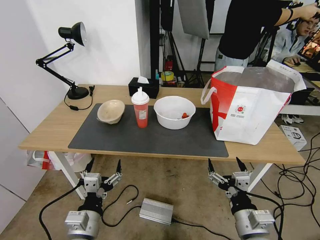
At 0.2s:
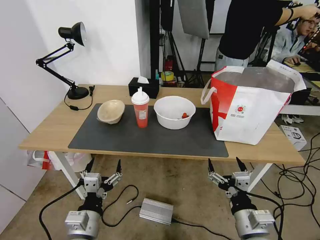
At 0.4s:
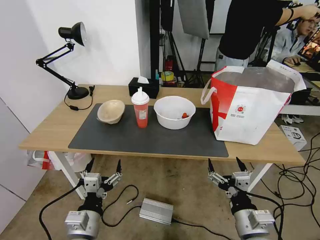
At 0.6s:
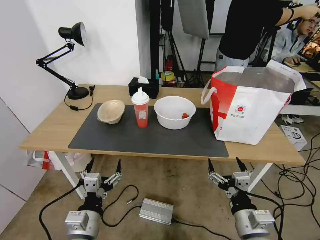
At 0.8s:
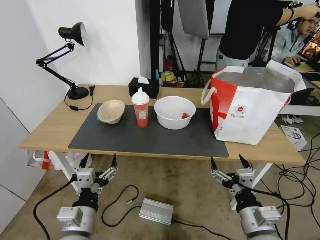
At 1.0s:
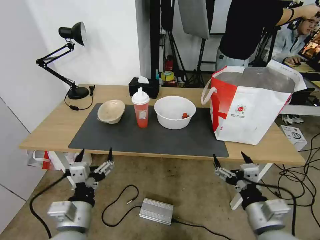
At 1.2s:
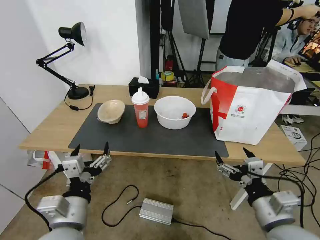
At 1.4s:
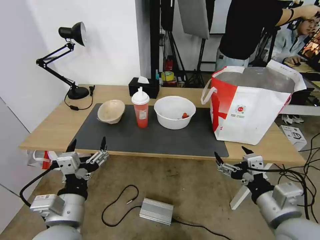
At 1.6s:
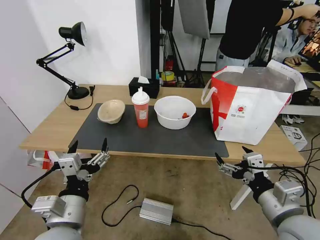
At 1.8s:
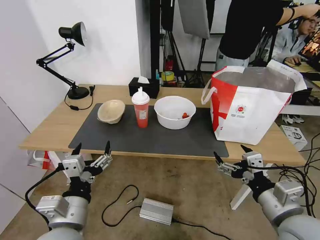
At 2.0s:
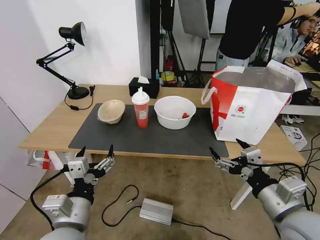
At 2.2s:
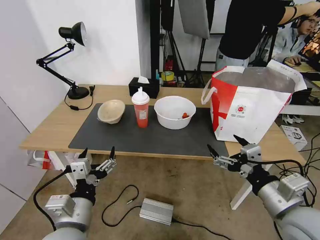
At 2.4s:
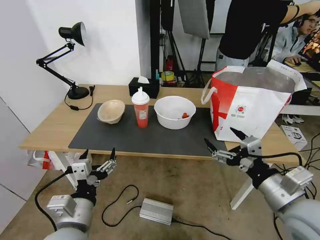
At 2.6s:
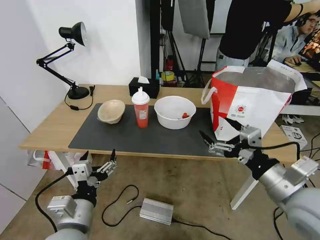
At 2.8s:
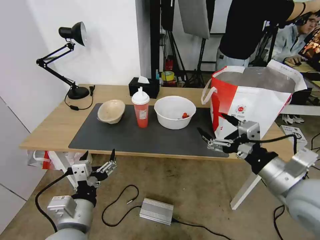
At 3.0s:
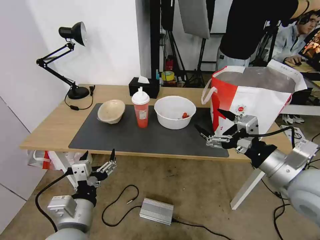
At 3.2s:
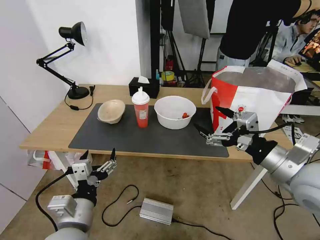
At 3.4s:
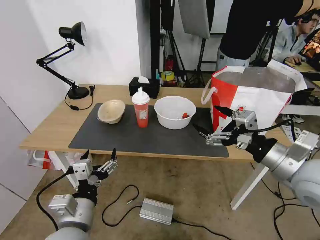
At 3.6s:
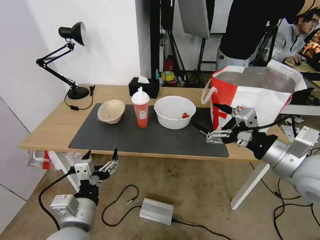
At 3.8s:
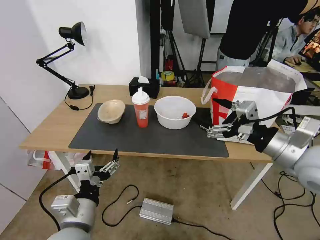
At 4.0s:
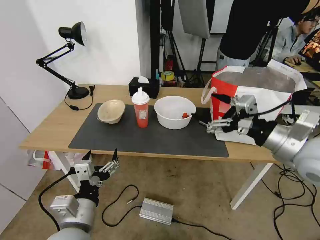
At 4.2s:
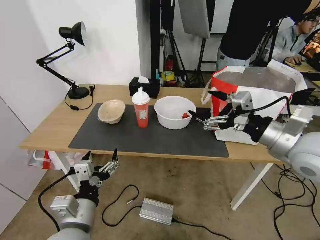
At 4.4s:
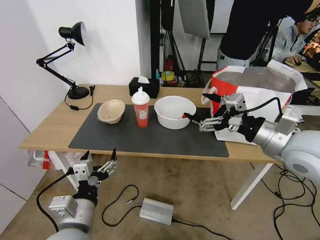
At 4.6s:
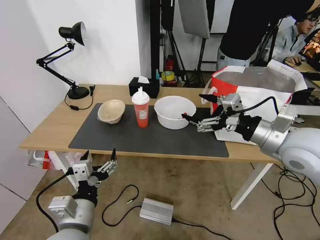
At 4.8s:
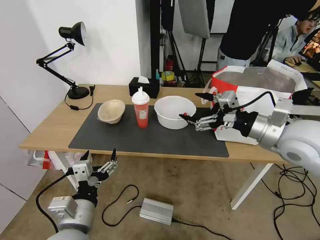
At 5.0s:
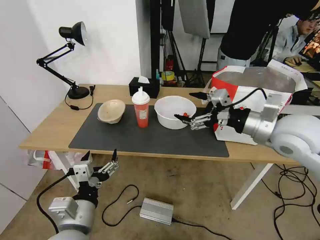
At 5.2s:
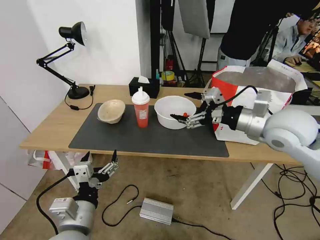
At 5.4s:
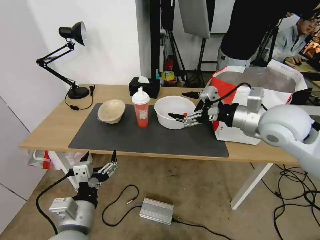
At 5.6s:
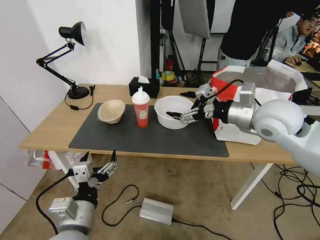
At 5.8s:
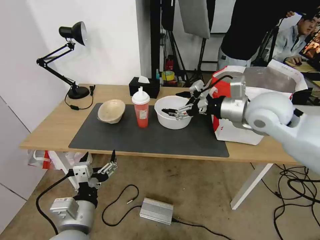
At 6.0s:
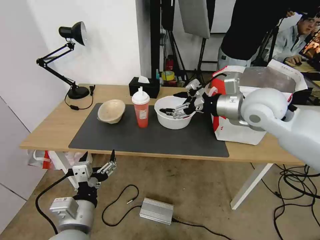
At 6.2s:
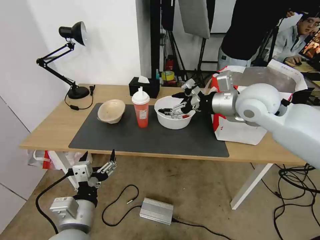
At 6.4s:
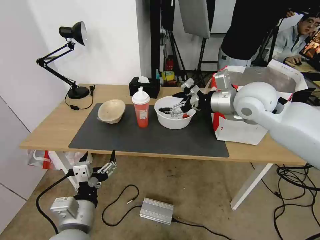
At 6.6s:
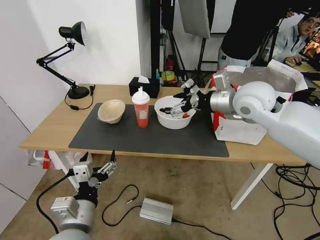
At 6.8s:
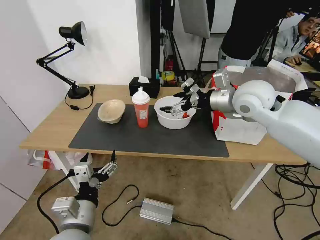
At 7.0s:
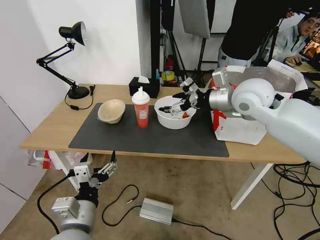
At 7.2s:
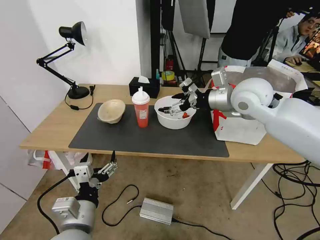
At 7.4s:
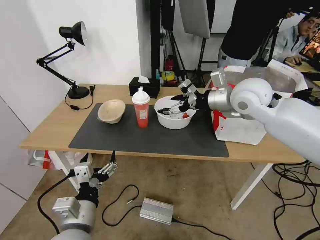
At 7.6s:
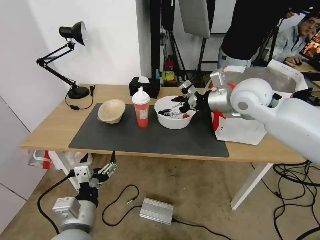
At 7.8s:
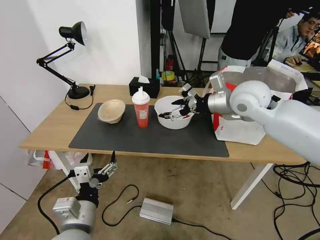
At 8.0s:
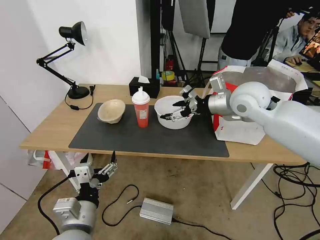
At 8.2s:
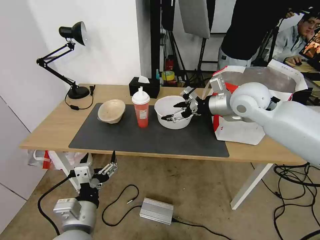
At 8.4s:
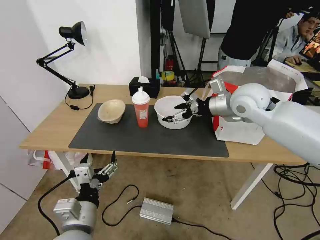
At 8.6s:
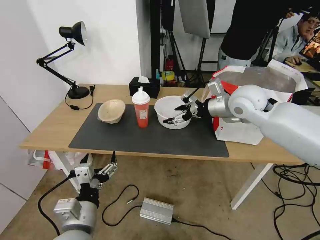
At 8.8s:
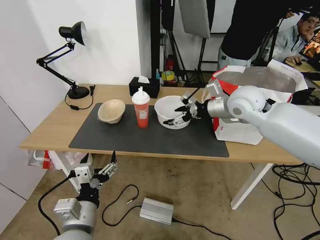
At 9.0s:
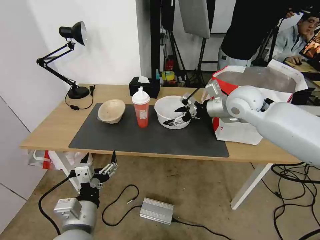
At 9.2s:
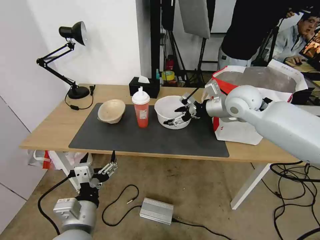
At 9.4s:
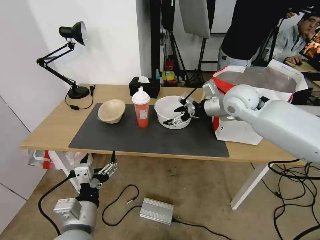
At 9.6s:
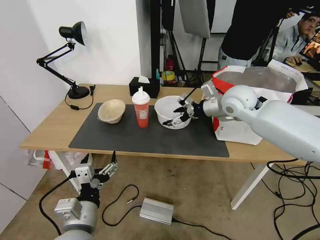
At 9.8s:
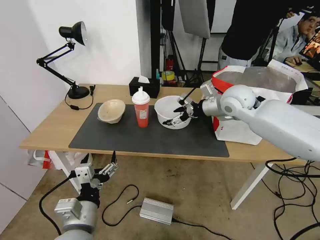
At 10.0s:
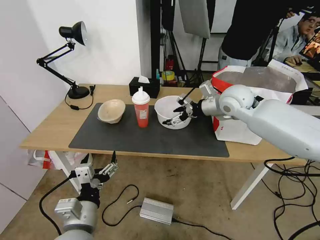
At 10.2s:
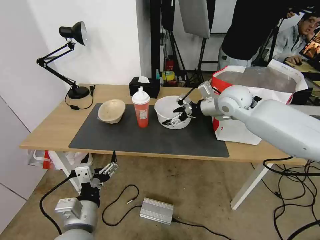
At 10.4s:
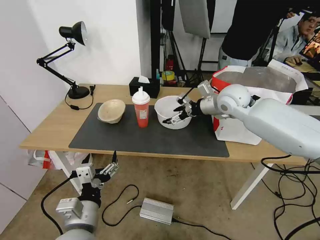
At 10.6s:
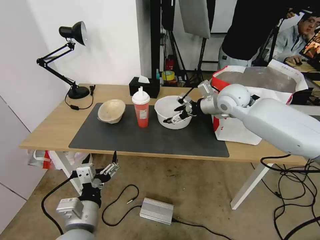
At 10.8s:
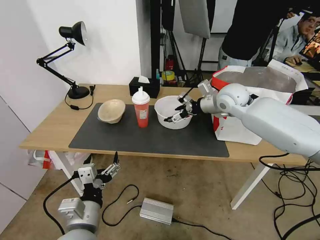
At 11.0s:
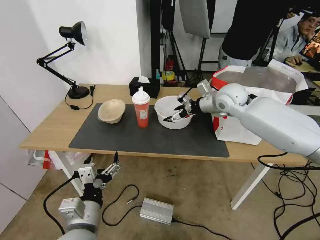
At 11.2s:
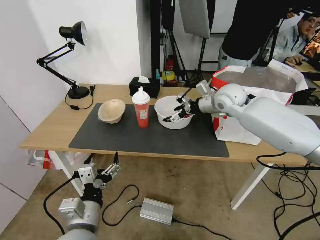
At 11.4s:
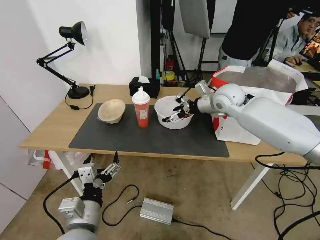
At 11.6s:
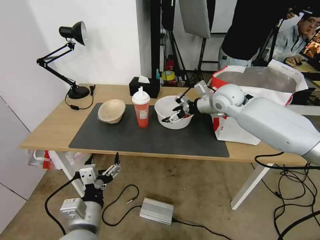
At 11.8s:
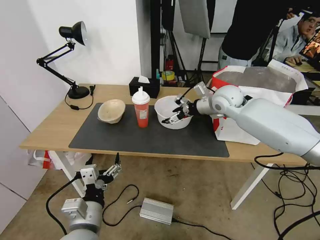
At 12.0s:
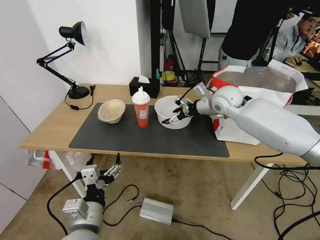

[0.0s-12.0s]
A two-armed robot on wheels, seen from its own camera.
Task of the whole recording: Pick up the trash from the table and place it into the takeout bag.
1.6s to 3.0s: The right gripper is displaced forward and upward by about 10 cm.
3.0s to 4.4s: The right gripper goes some 5 cm forward.
4.4s to 6.0s: The right gripper goes some 15 cm forward and to the left.
6.0s to 7.6s: The grippers stay close to where they were, moving slightly.
7.6s to 9.0s: The grippers make only small movements.
9.0s to 10.4s: The grippers move only a little.
10.4s to 12.0s: The grippers stay close to where they were, moving slightly.

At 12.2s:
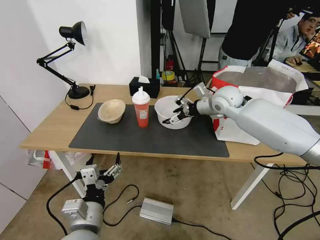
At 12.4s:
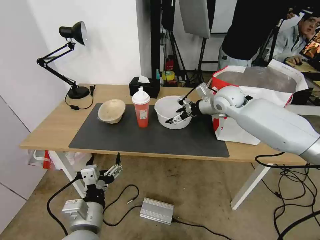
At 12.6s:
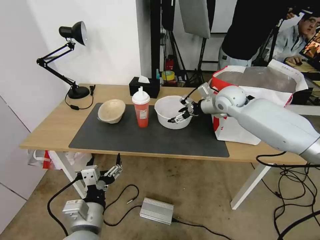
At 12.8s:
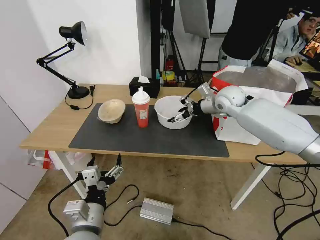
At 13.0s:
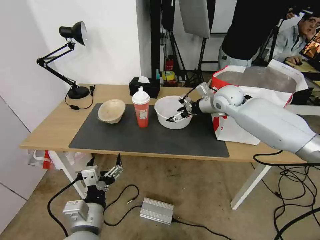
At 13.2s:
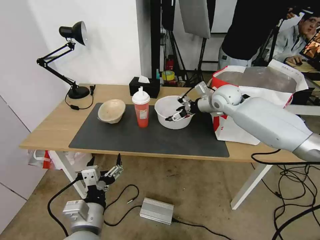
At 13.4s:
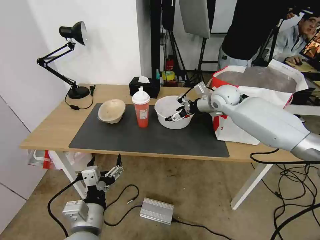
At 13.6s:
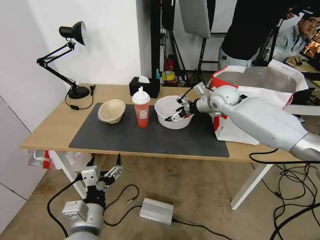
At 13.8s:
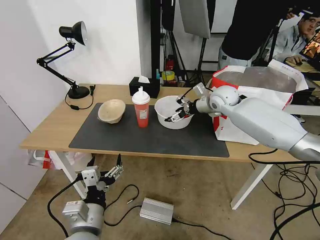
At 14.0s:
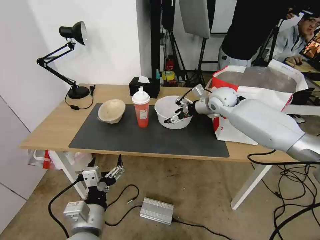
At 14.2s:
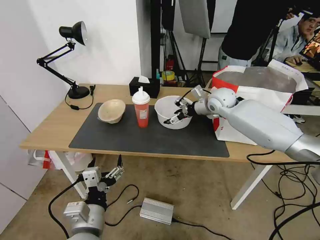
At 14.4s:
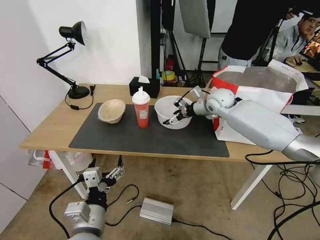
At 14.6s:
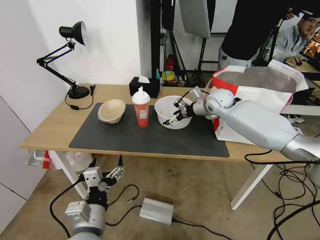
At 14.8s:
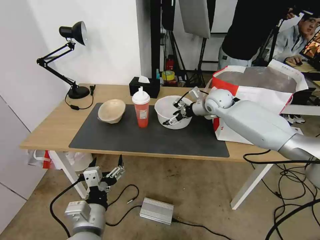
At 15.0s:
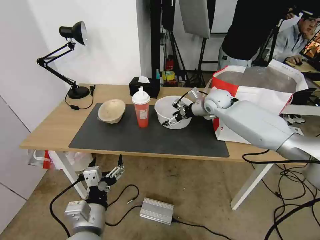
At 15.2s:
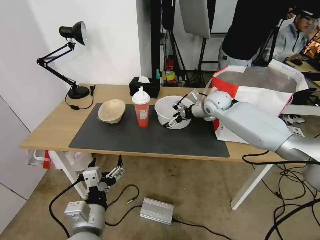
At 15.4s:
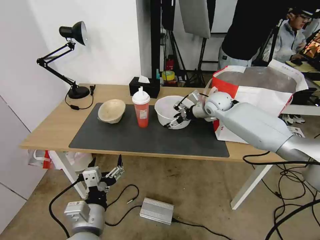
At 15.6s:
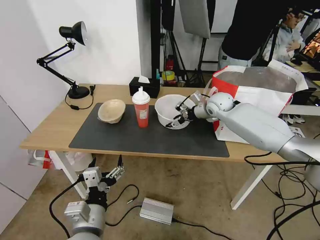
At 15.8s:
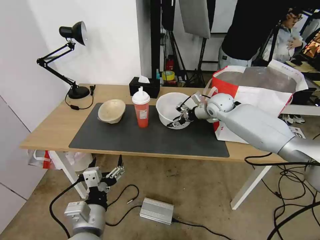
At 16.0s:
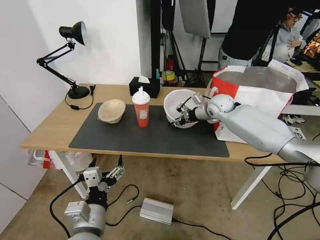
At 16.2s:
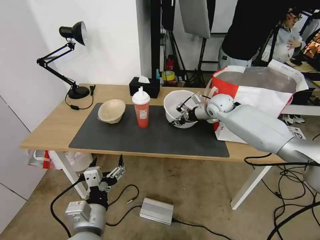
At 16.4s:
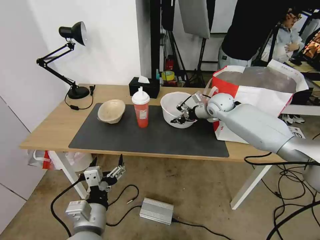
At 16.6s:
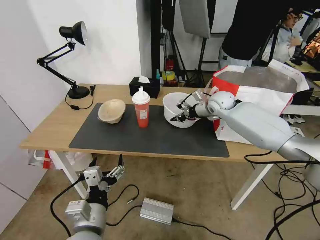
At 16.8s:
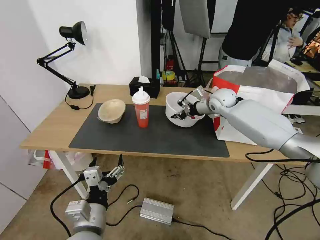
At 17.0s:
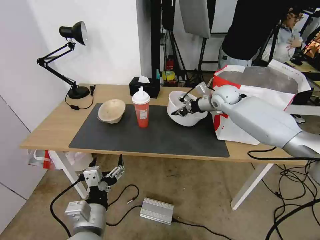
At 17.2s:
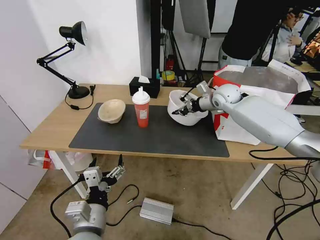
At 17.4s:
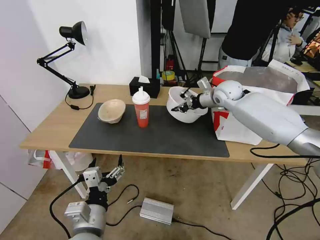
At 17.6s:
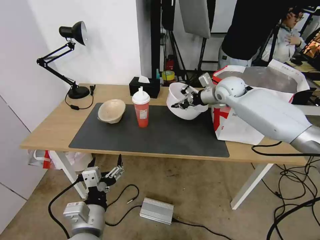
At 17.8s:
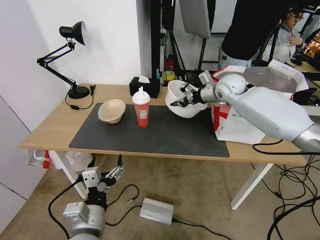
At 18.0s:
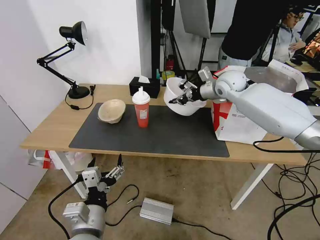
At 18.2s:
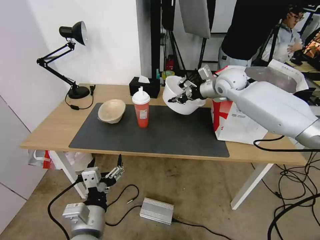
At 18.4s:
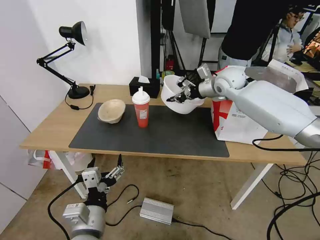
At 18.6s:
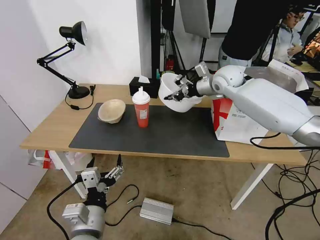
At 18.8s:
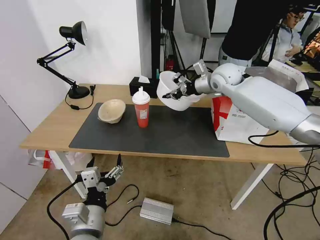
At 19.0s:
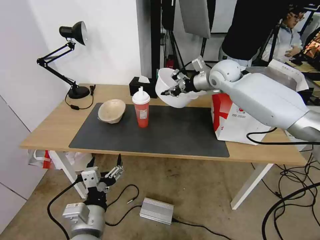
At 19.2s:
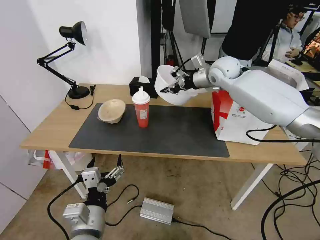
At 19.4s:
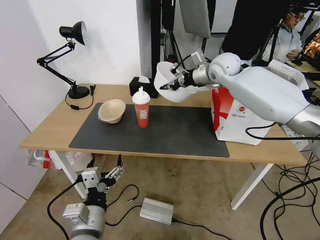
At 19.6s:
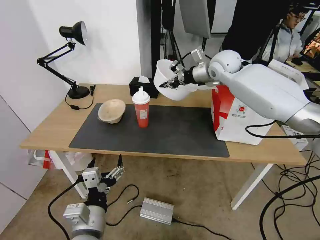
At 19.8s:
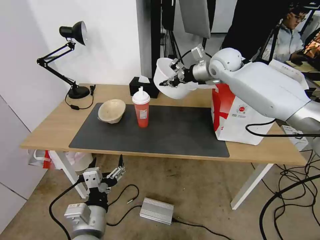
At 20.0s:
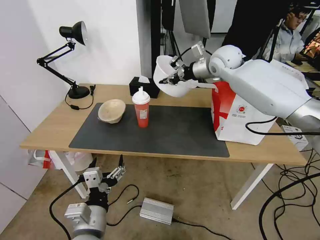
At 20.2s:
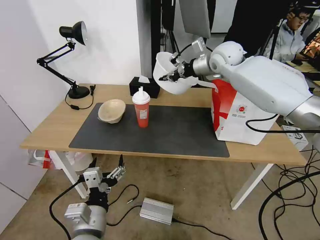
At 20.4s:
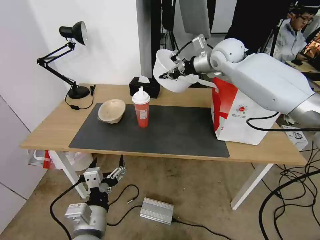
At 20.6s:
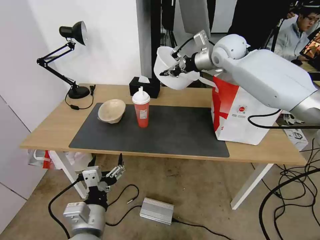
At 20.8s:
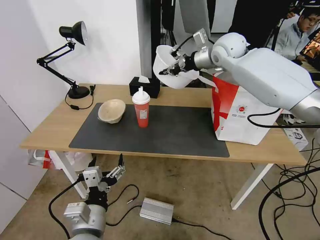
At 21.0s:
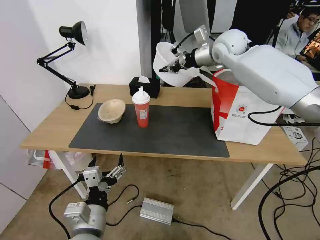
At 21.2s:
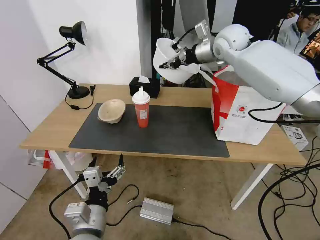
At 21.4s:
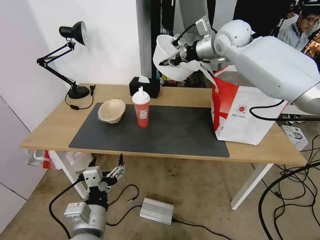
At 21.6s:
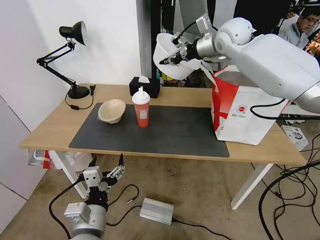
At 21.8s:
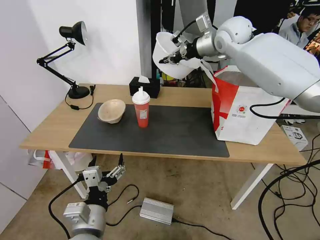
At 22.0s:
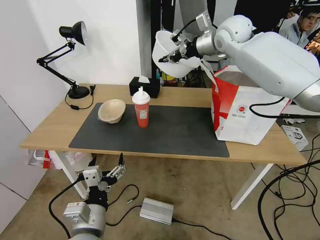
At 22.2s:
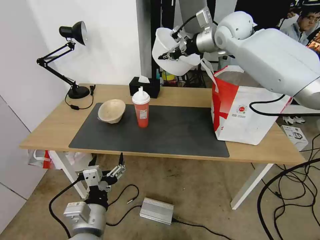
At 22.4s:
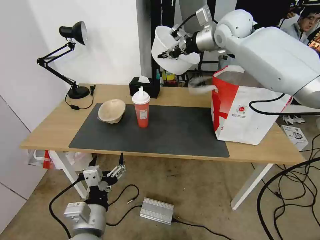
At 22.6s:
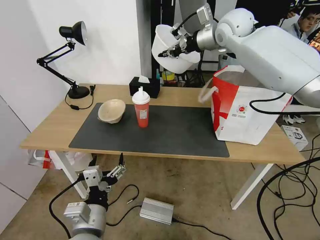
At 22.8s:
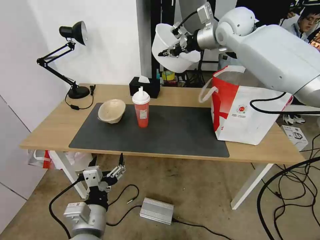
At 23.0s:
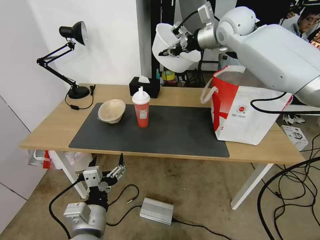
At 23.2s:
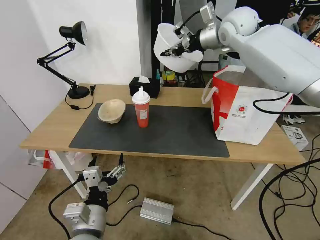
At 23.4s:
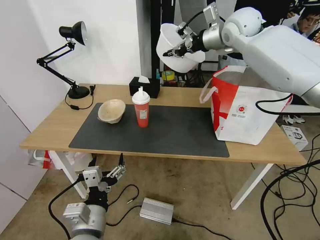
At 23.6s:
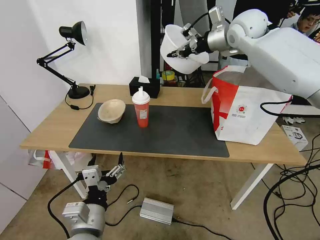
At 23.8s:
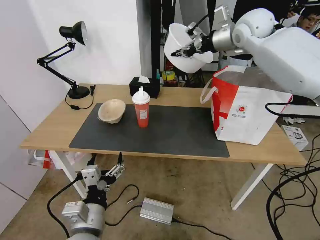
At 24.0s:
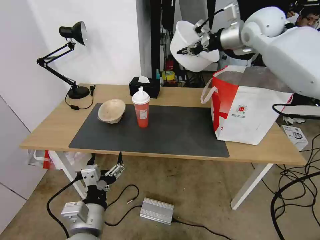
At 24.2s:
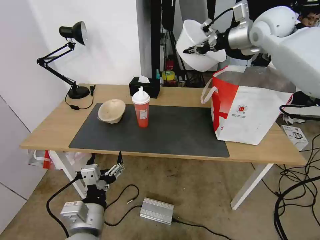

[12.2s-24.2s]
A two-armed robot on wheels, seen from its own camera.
Task of the whole recording: Pick up the trash from the table and place it into the takeout bag.
12.2s to 13.8s: The grippers stay close to where they were, moving slightly.
13.8s to 15.2s: There are only small adjustments of the grippers.
15.2s to 16.6s: The right gripper closes its fingers.
16.6s to 18.2s: The right gripper shifts approximately 10 cm upward.
18.2s to 19.8s: The right gripper moves upward, some 5 cm.
19.8s to 21.2s: The right gripper shifts roughly 5 cm upward.
21.2s to 22.6s: The grippers move only a little.
22.6s to 24.2s: The right gripper shifts some 10 cm to the right.
